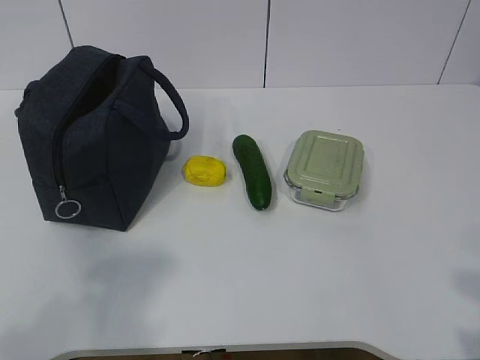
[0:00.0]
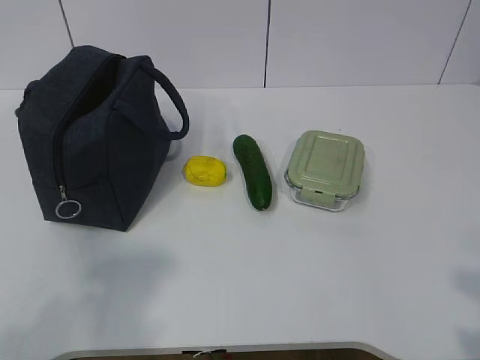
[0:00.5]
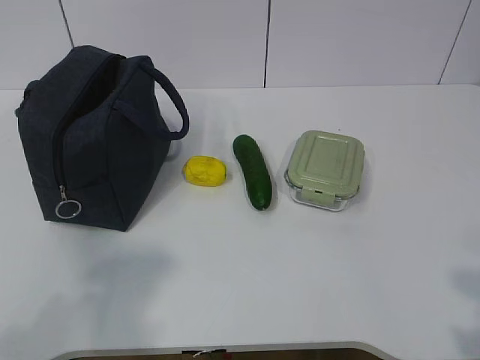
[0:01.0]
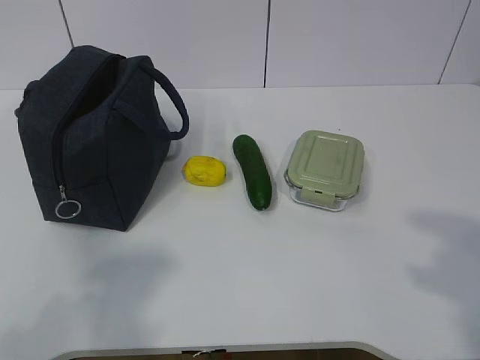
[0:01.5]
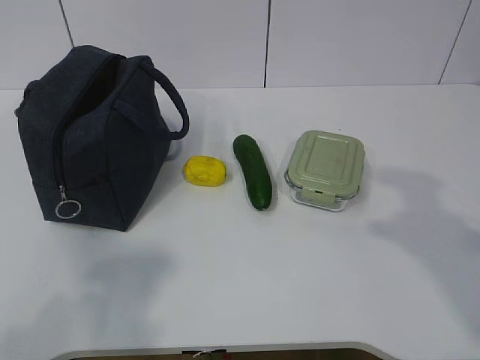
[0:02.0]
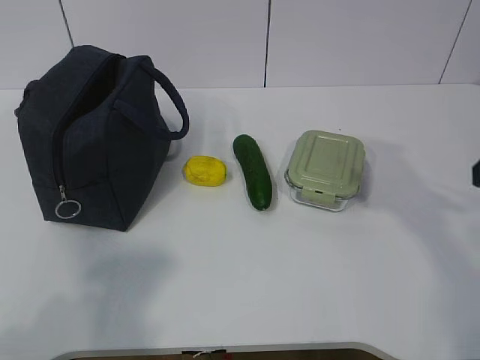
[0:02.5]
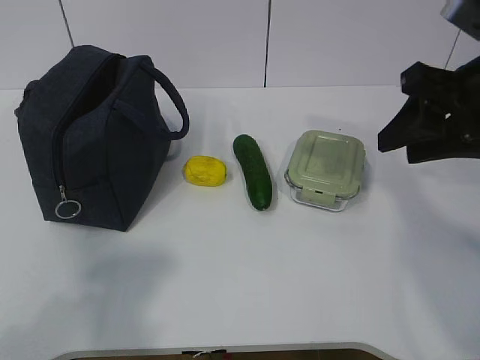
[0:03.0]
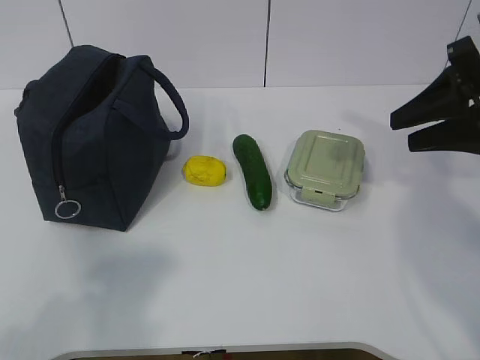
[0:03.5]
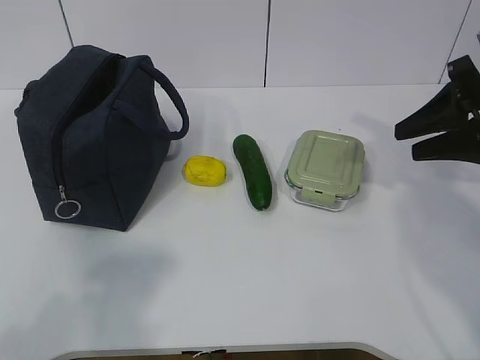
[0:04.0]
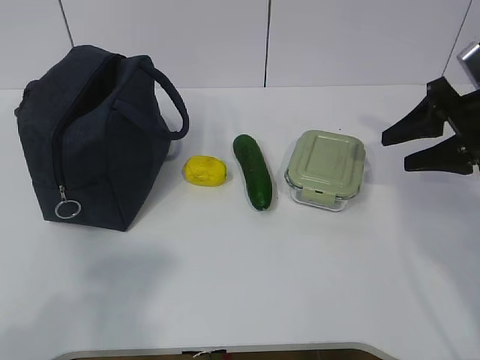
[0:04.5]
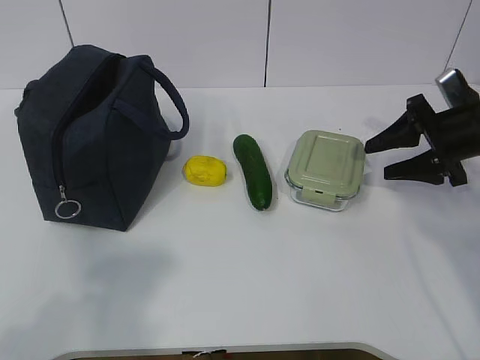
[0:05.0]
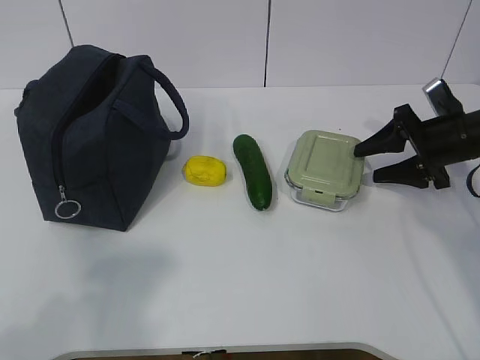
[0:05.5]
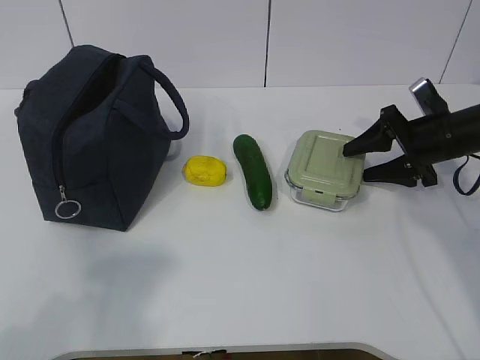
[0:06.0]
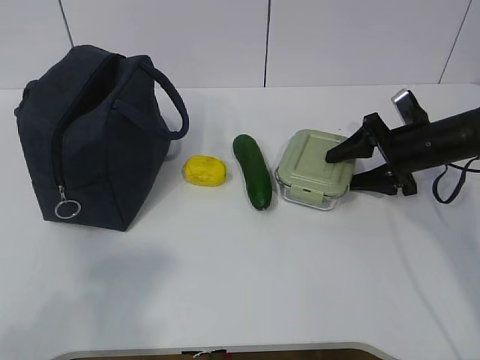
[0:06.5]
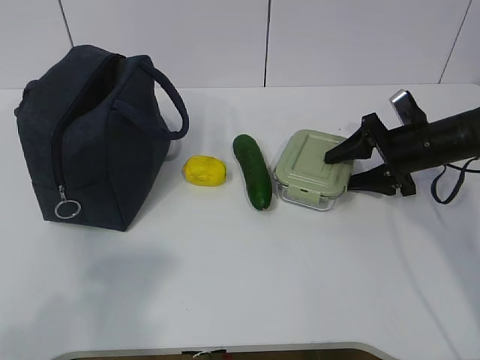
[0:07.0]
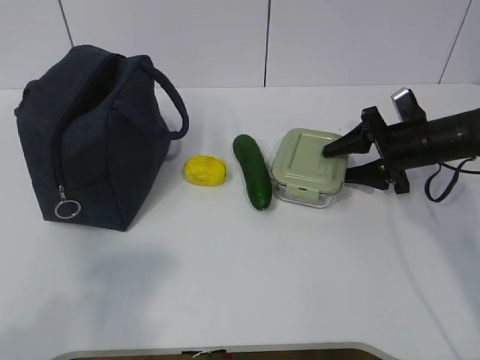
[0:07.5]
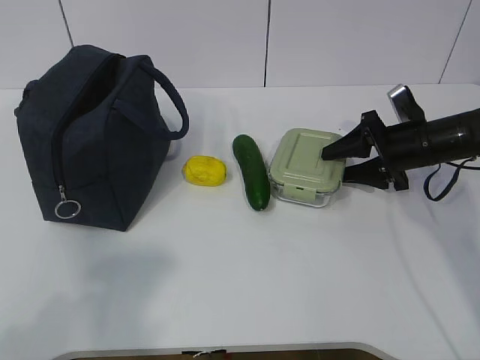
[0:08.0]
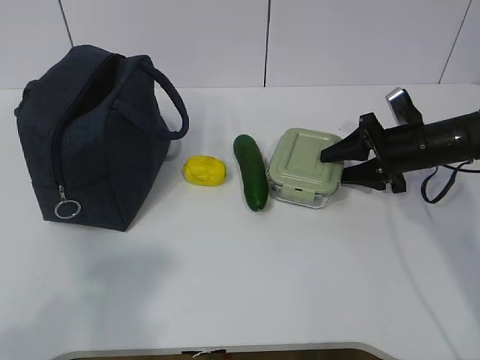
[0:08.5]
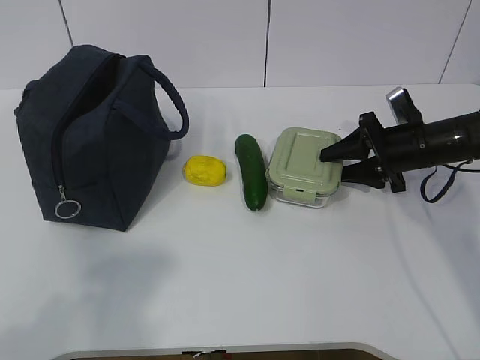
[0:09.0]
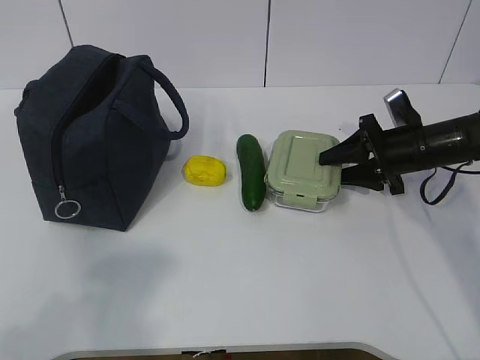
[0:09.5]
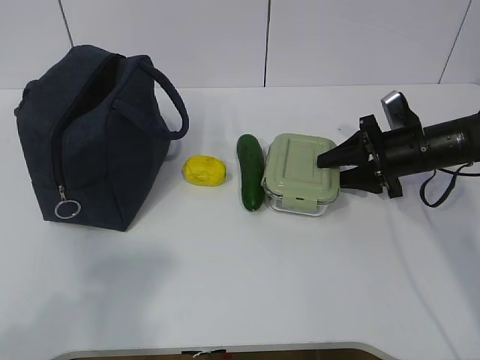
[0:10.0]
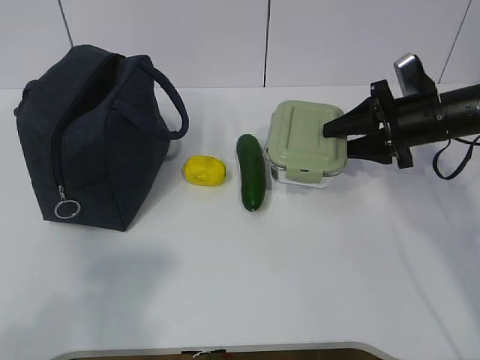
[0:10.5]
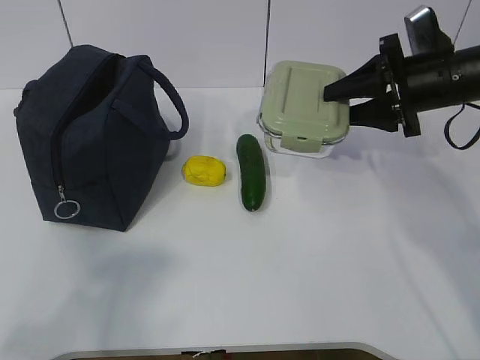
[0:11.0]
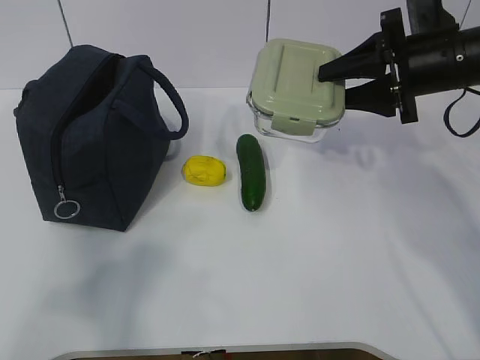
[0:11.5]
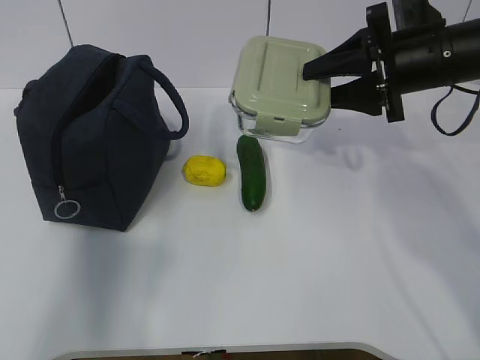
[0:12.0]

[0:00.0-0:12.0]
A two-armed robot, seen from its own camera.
Step, 0:00.0 to 0:08.0: Grab the lunch box with your right hand.
0:02.0 to 0:04.0: The right gripper moves forward, about 20 cm.
0:04.0 to 0:06.0: The right gripper shifts about 15 cm downward and forward.
0:06.0 to 0:10.0: The grippers make only small movements.
0:10.0 to 0:12.0: The right gripper travels upward by roughly 15 cm, while the left gripper goes approximately 15 cm forward and upward.

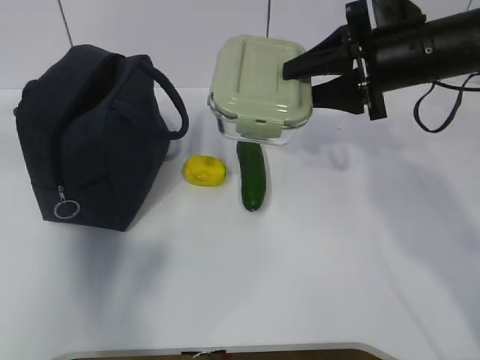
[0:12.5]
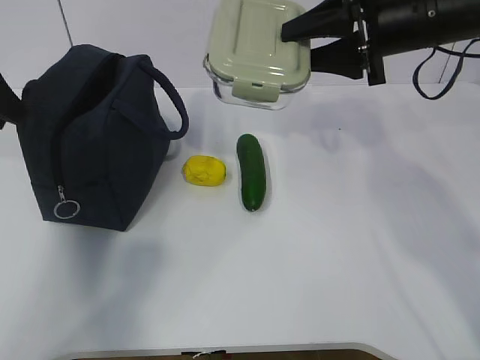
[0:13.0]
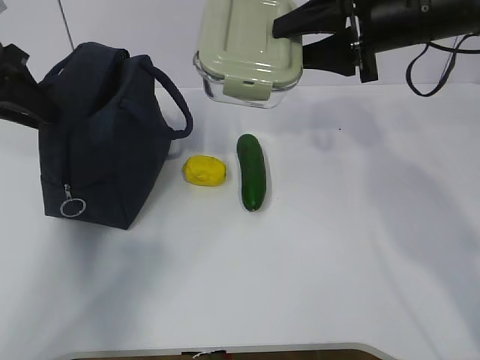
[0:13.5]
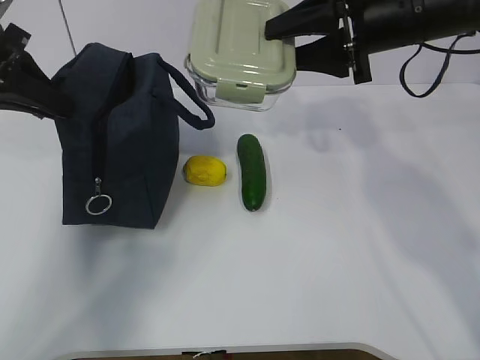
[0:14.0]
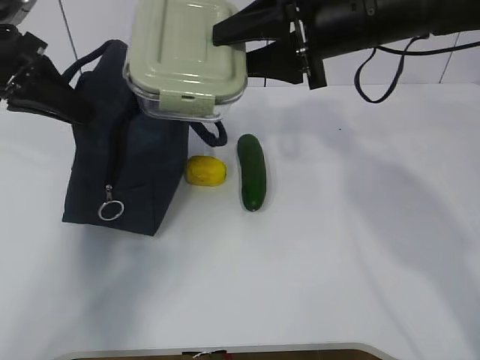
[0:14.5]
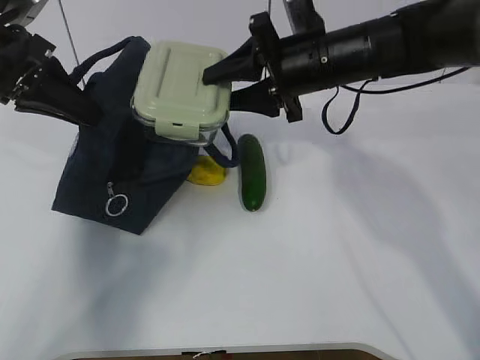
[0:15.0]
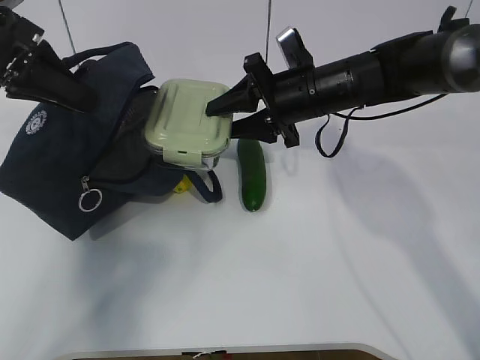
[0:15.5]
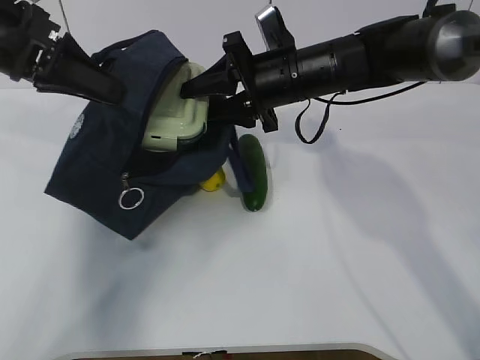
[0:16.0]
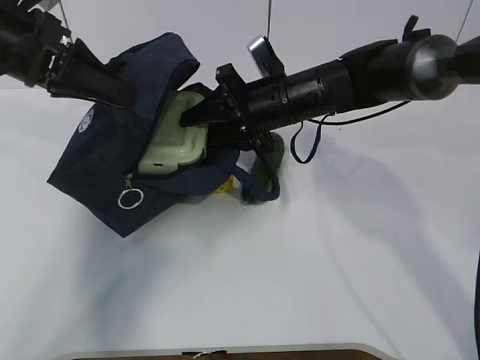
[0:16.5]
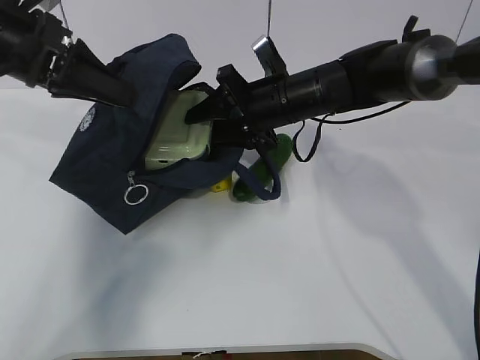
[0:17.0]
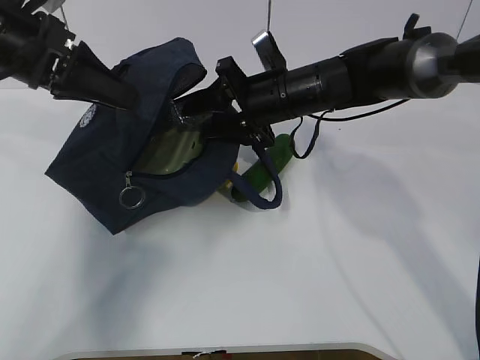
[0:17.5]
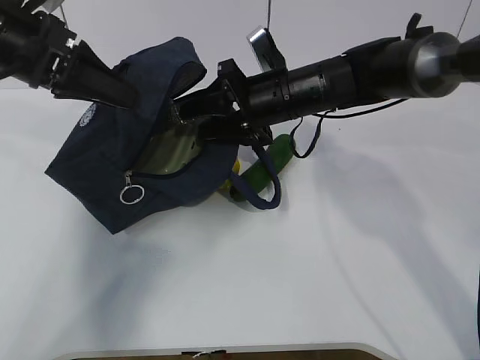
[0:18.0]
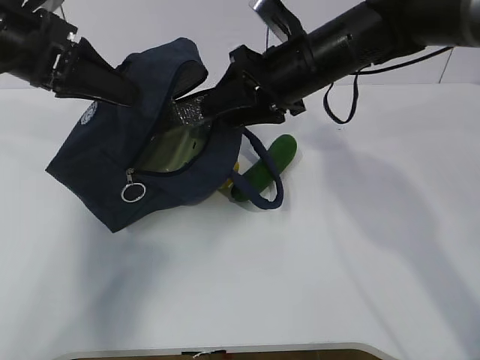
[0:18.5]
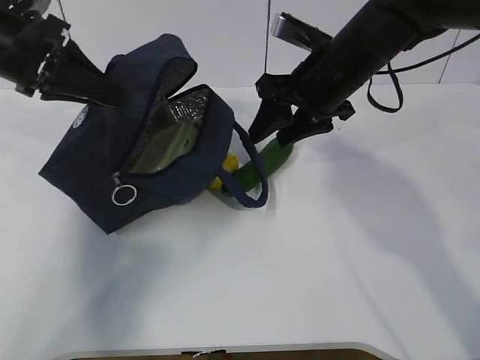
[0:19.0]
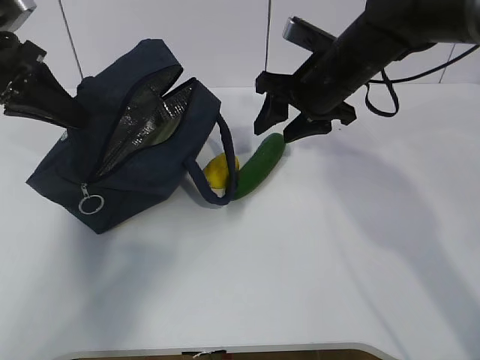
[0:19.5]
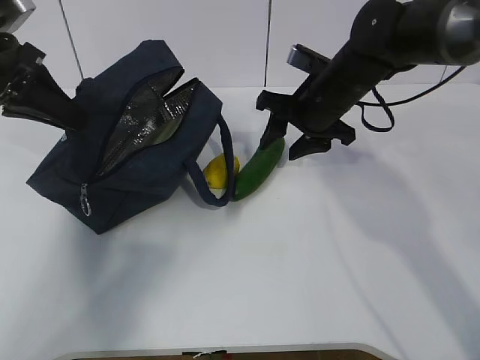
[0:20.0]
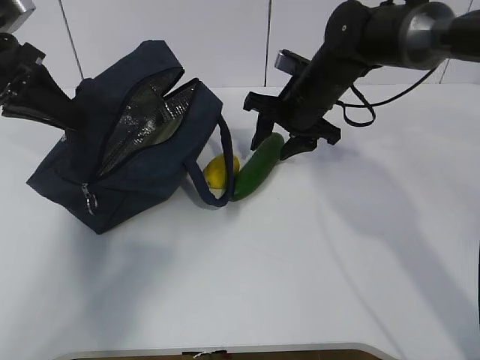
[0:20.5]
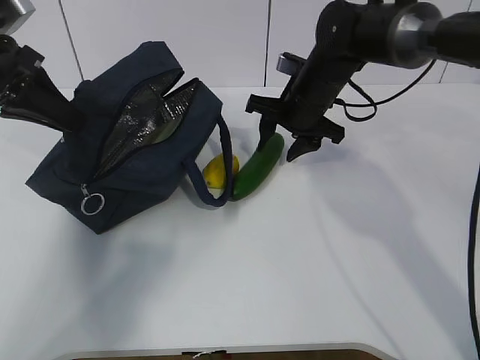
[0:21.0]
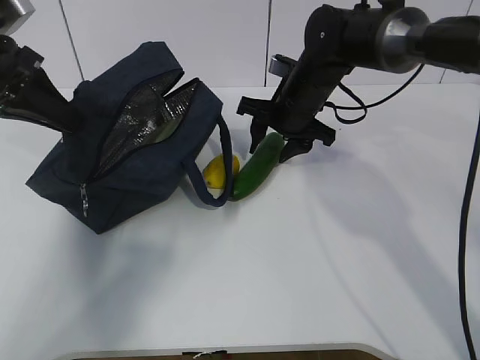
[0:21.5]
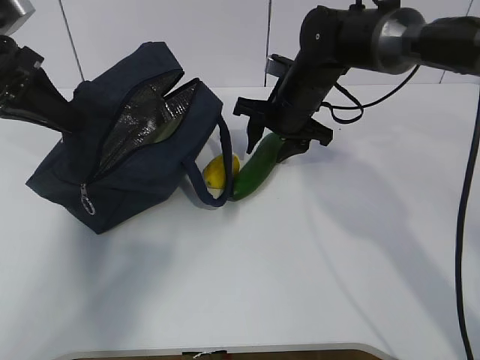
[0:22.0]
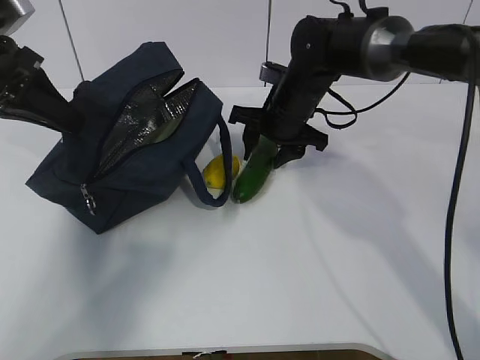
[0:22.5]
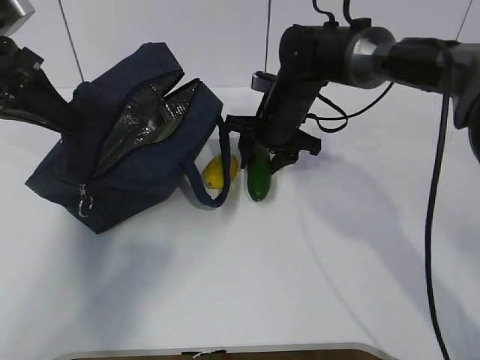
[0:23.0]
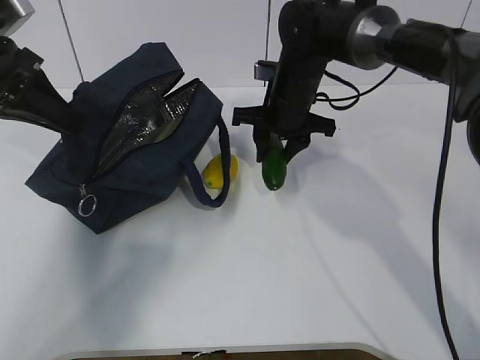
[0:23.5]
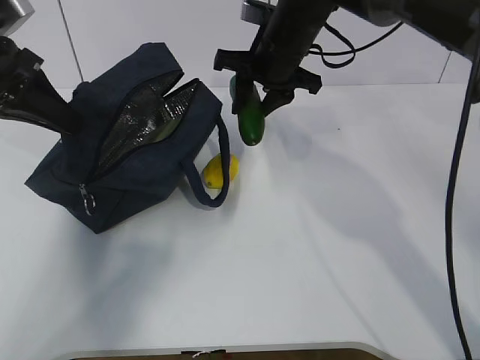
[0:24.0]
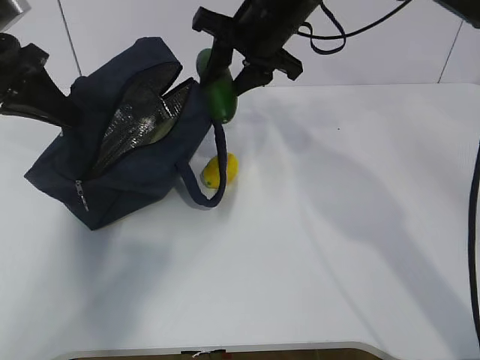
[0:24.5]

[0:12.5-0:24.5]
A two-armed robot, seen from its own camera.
Step, 0:12.5 to 0:14.5: Place it into the bag with your right hand.
Step, 0:15.0 to 0:19.0: Grab the cucumber with your right hand.
Step, 0:19.5 to 0:21.5: Place it into the bag with your right hand.
0:12.5 to 0:14.5: The left gripper shifts some 10 cm forward, downward and to the right, and closes up, while the right gripper moves to the left, about 5 cm.
0:14.5 to 0:16.5: The right gripper moves downward, forward and to the left, roughly 15 cm.
0:16.5 to 0:18.5: The right gripper travels upward by roughly 5 cm.
0:18.5 to 0:20.5: The left gripper moves about 5 cm. The right gripper moves downward and forward, some 10 cm.
0:20.5 to 0:22.5: The grippers make only small movements.
0:22.5 to 0:24.5: The right gripper travels upward by roughly 10 cm.

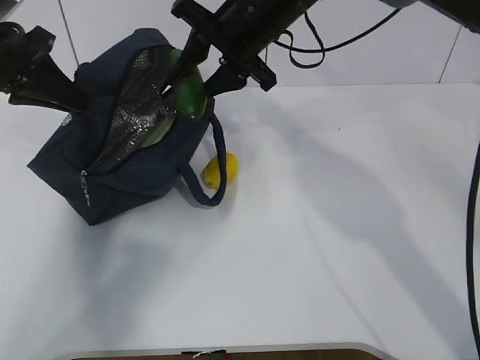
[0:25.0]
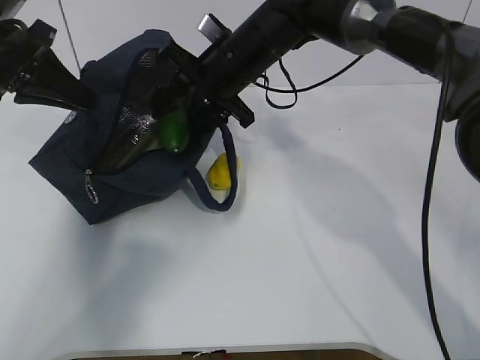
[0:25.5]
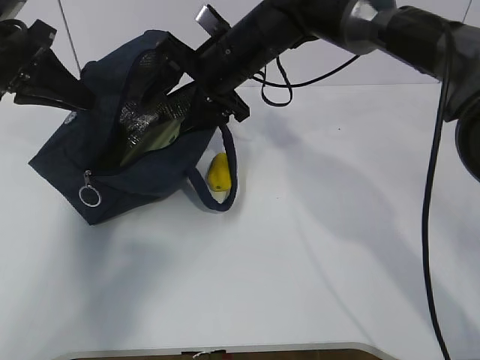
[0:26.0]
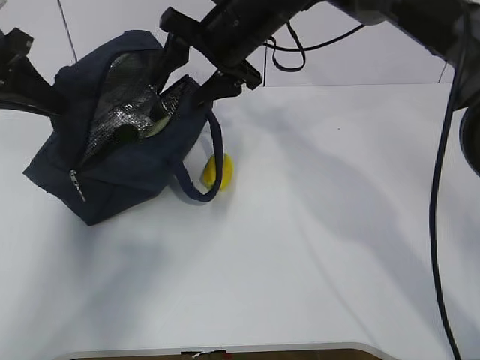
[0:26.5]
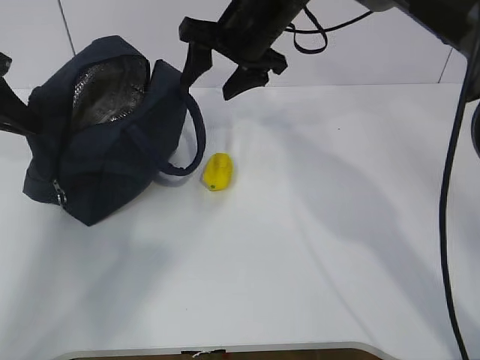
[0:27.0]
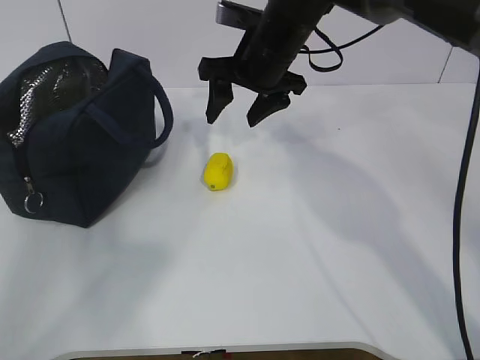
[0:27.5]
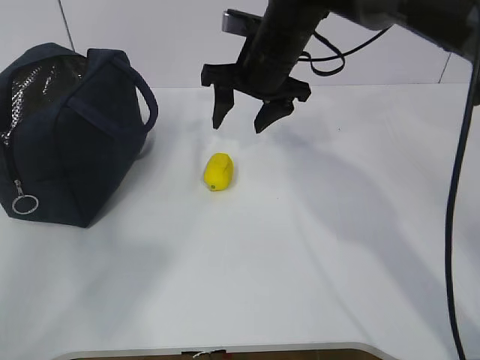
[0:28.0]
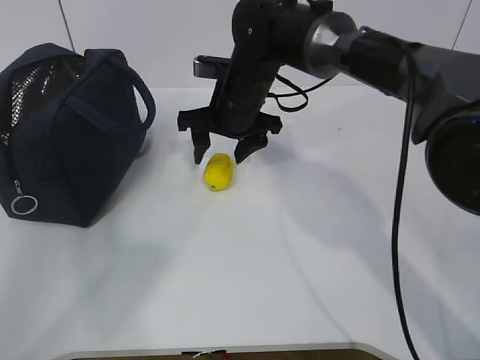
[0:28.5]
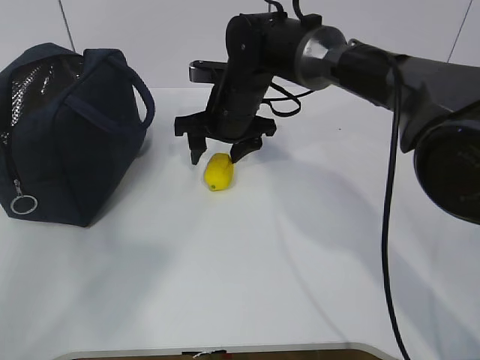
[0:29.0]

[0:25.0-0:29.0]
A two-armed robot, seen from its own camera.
Step, 0:25.5 to 0:27.5: Secure the lunch bag with your left hand.
0:25.0 to 0:27.0: The left gripper goes approximately 5 cm to the left. The right gripper opens.
0:27.0 to 0:29.0: The right gripper heads downward, covering some 10 cm; the left gripper is displaced to the left by approximately 5 cm.
